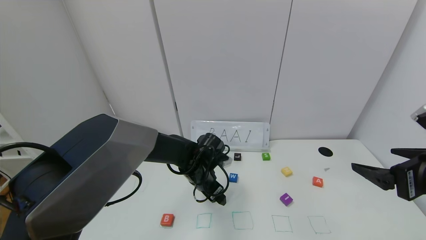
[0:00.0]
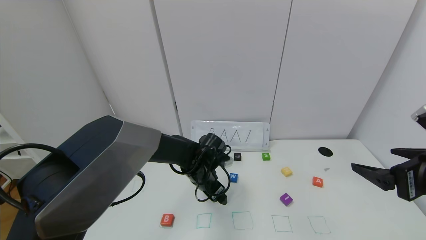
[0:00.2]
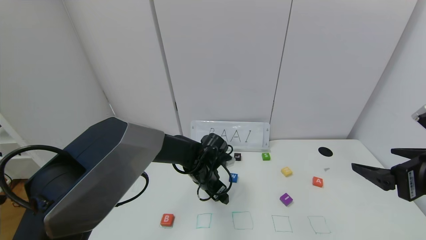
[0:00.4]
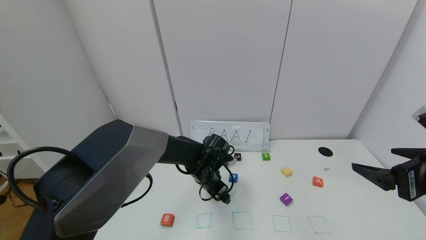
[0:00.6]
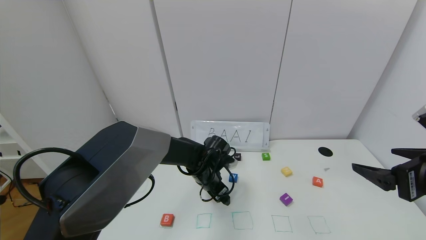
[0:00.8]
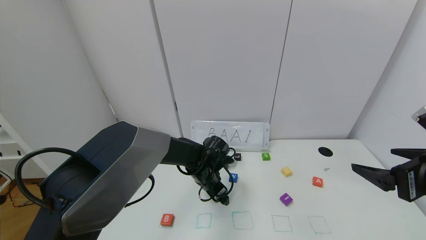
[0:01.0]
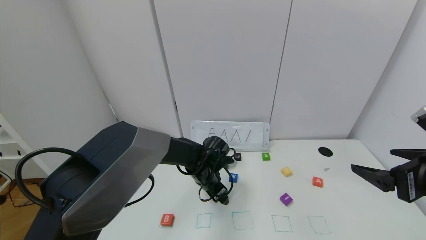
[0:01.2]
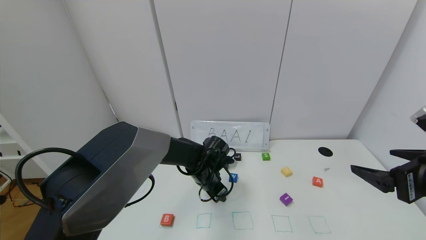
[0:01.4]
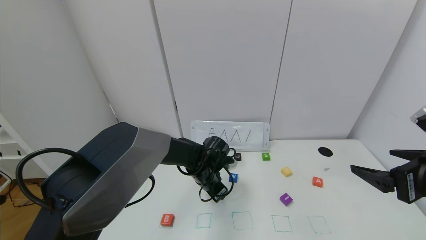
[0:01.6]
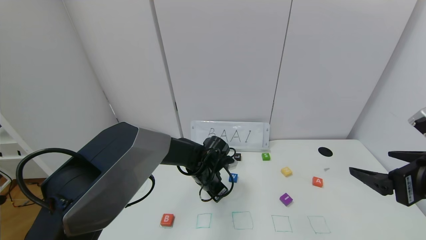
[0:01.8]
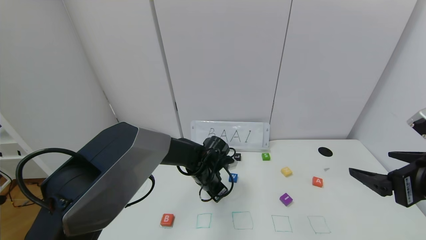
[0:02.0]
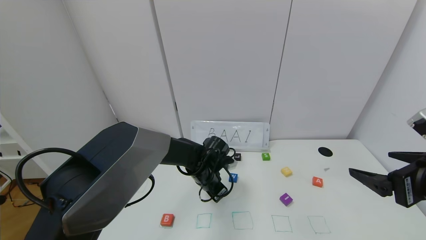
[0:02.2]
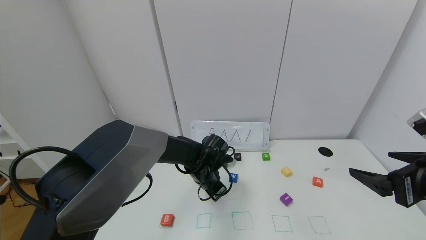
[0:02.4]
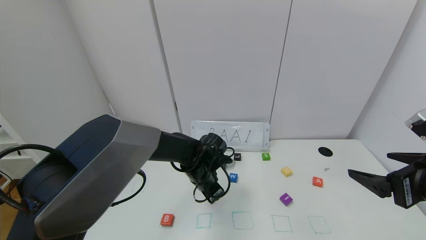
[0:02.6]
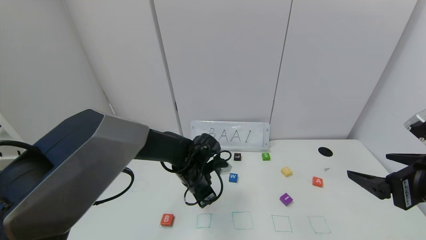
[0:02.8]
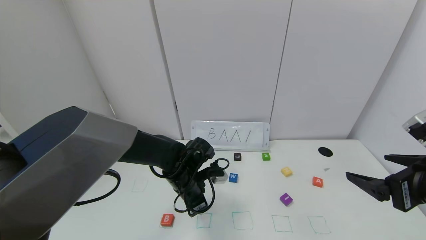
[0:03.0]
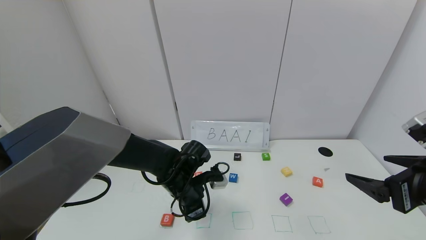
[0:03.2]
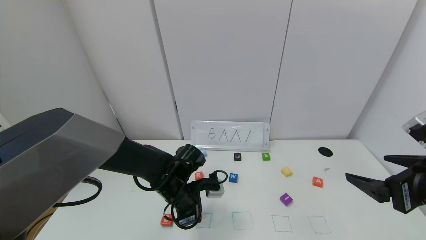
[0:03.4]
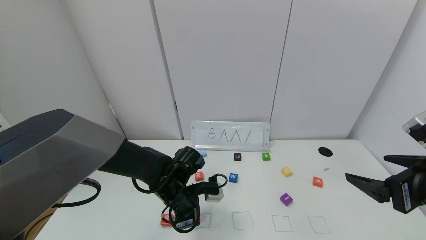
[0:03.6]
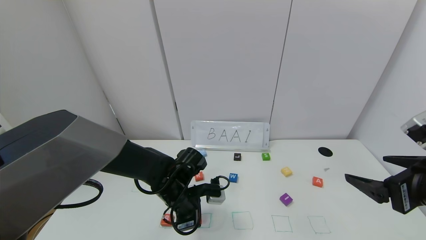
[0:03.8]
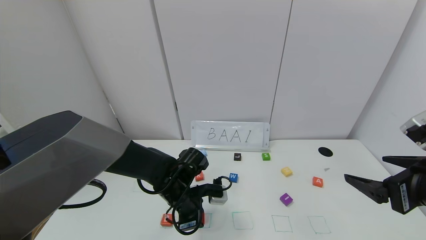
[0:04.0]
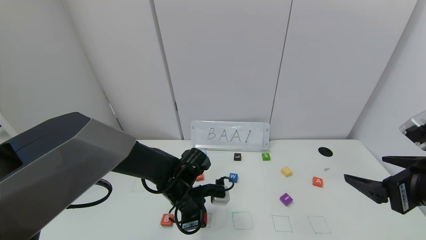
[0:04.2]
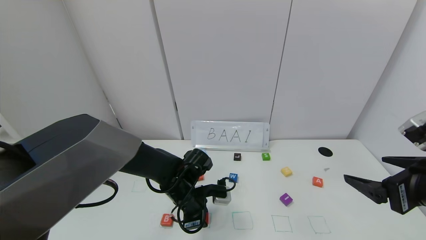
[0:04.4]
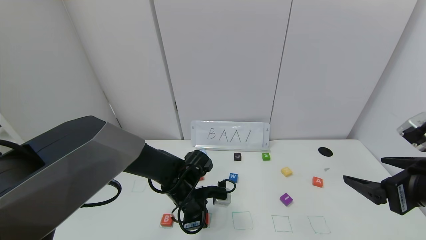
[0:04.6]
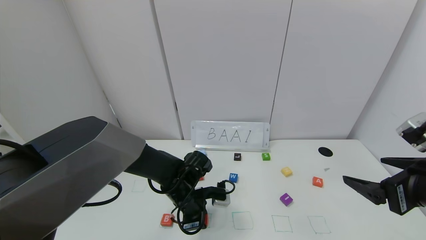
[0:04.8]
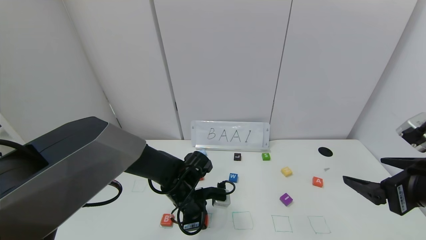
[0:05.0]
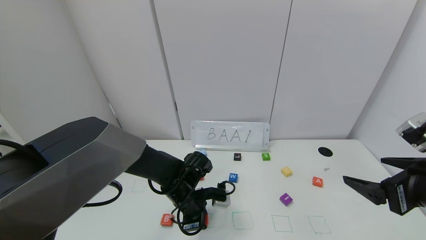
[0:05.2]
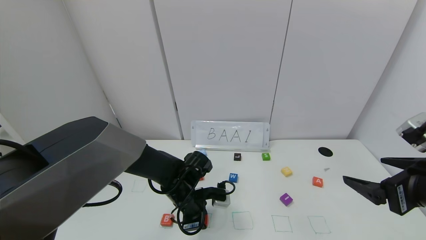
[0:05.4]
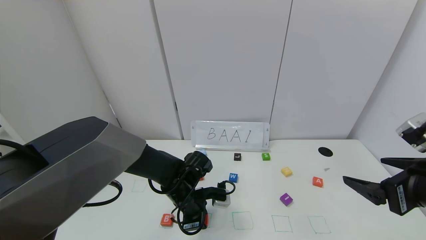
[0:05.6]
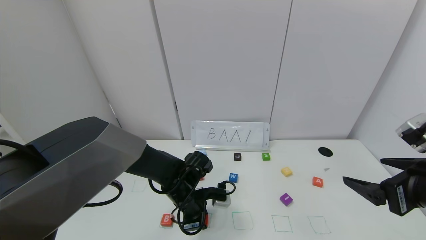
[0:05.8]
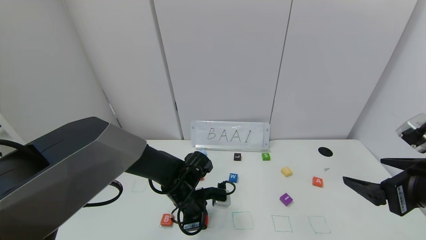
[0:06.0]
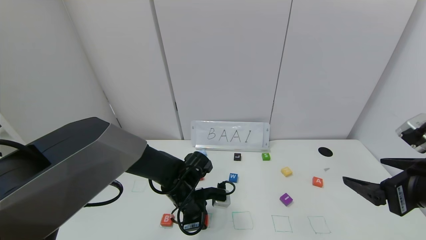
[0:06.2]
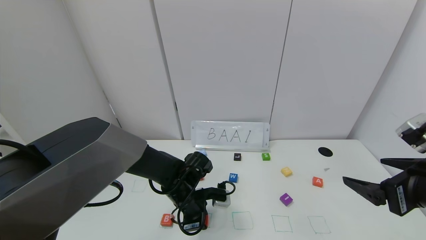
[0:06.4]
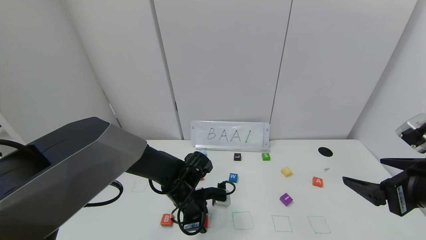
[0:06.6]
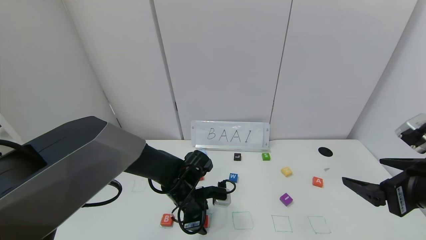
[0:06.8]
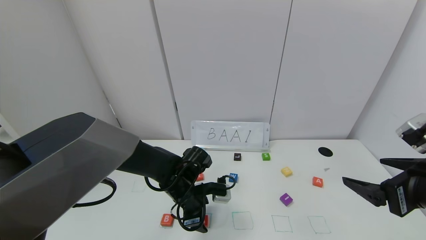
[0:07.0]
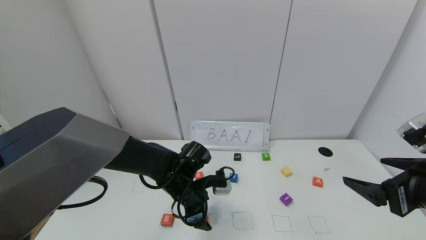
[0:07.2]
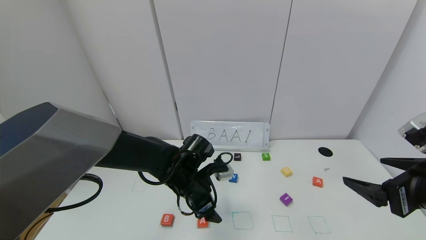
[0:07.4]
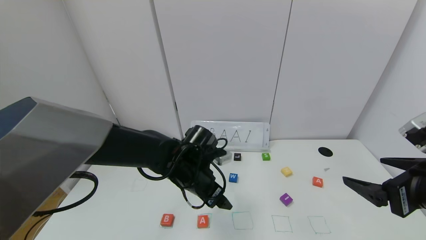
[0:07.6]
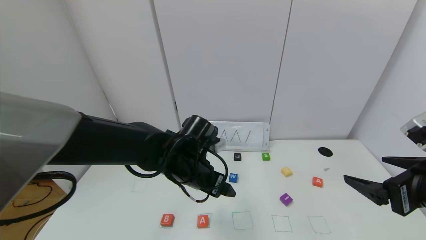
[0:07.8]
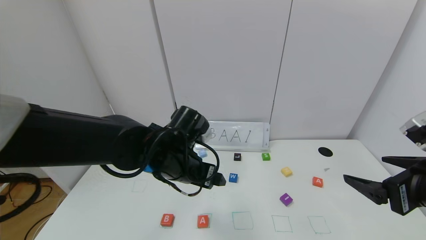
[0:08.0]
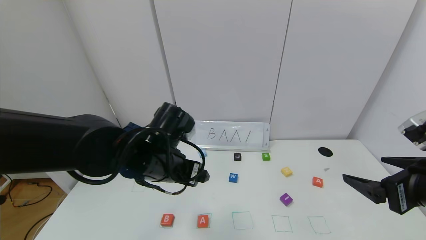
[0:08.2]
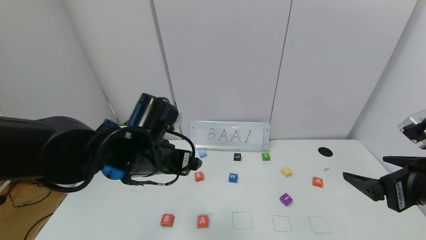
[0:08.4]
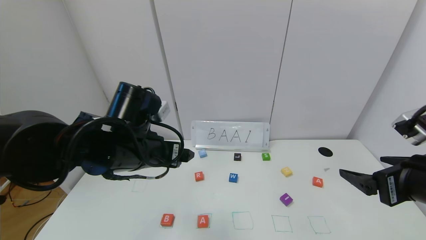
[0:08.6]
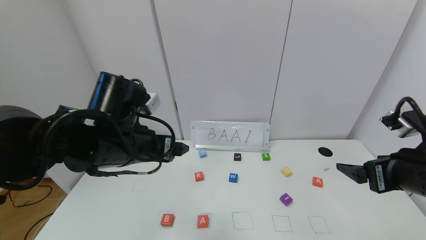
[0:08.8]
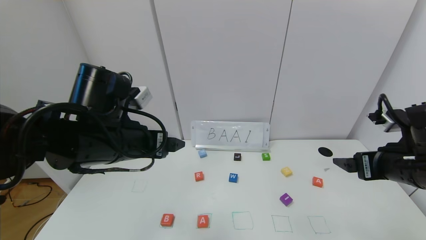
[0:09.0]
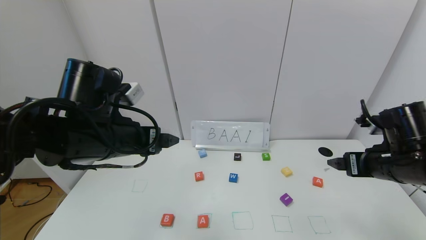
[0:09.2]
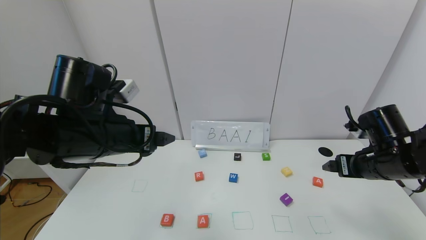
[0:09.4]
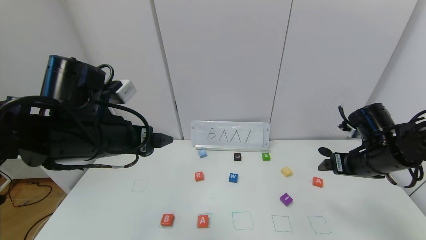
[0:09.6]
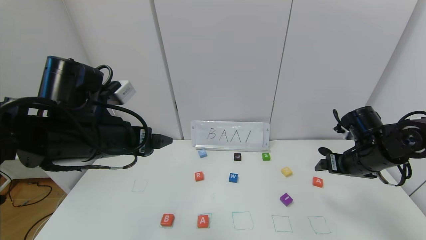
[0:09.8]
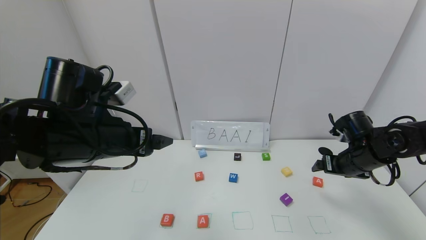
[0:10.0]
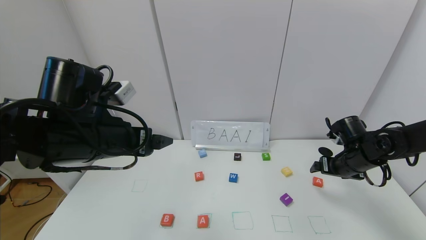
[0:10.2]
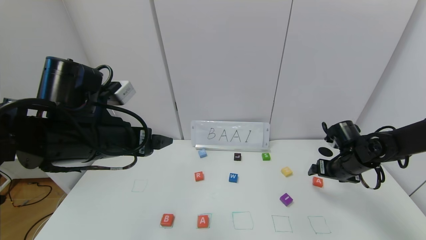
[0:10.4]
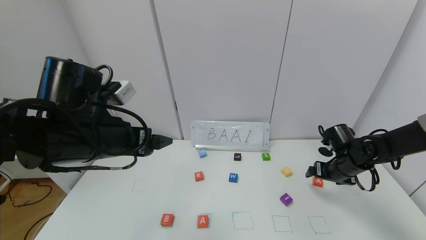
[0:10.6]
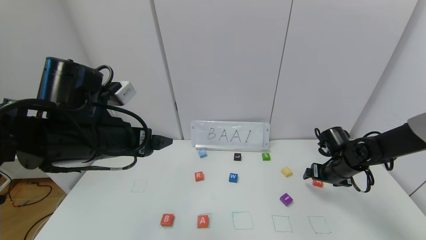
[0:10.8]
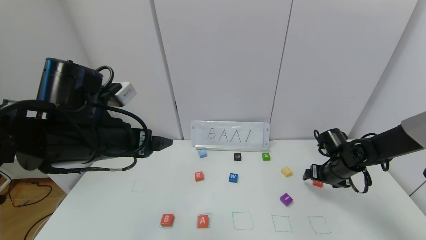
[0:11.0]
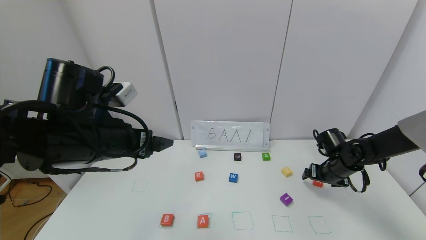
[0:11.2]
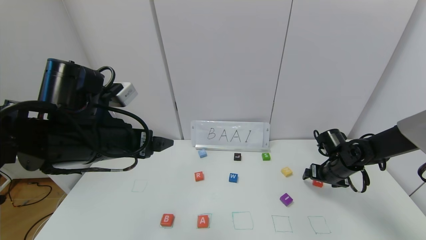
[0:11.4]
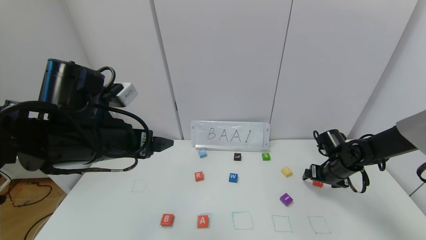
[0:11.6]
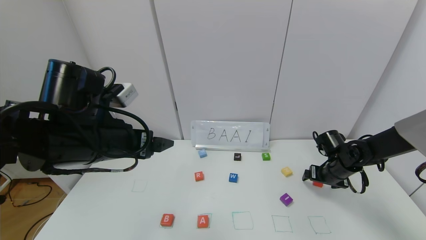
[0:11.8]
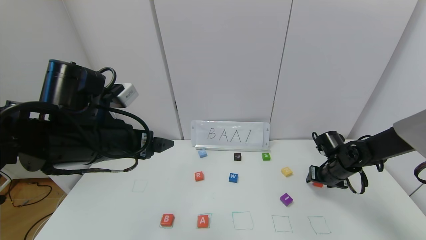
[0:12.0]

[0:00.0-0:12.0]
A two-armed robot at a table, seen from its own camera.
Task of the whole recording: use the gripper to find blocks with the letters b, a, a, and i on the table and arrange them into BAAI, then find r and N and turn the arranged baai into brian.
Step, 0:00.0 to 0:07.0: Place the first block A in the second location.
0:00.0 to 0:01.6: The left gripper closes its fingers.
0:01.6 to 0:03.0: The left gripper moves backward, approximately 5 cm.
0:04.4 to 0:06.0: Both grippers stay put.
0:06.0 to 0:07.6: The left gripper moves upward, some 10 cm, and opens its fingers.
0:07.6 to 0:09.0: The left gripper moves upward, to the left and backward, approximately 15 cm; the right gripper shifts roughly 10 cm forward.
0:09.0 to 0:10.4: The right gripper is displaced forward and downward by roughly 20 cm.
0:10.4 to 0:12.0: The right gripper changes place by some 5 cm, and closes its fingers.

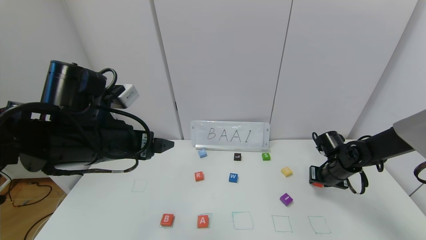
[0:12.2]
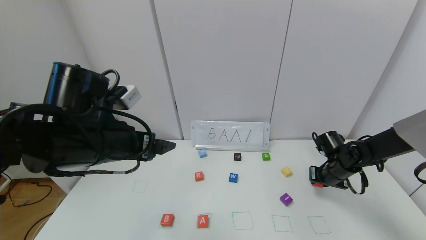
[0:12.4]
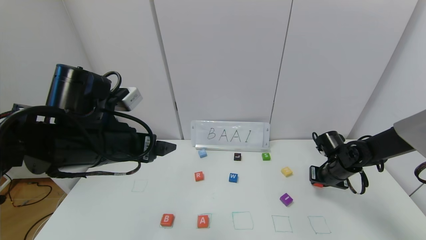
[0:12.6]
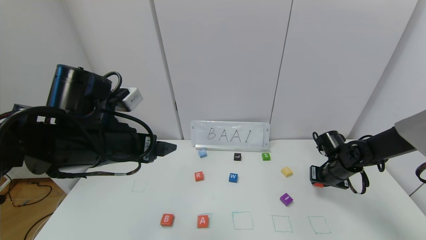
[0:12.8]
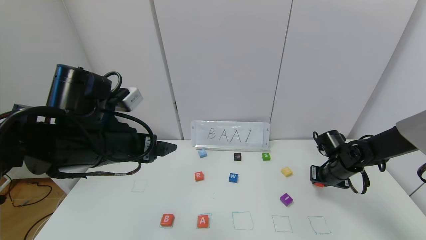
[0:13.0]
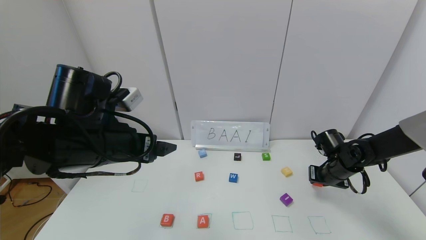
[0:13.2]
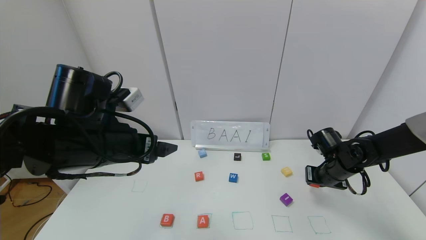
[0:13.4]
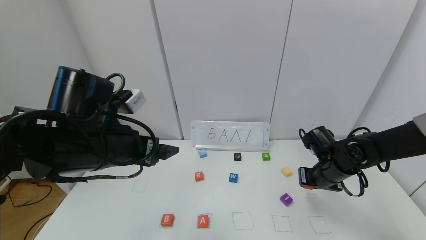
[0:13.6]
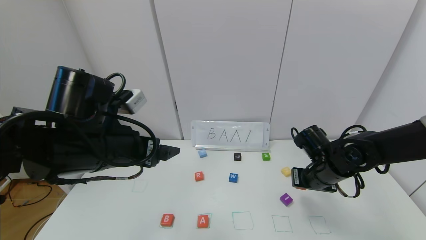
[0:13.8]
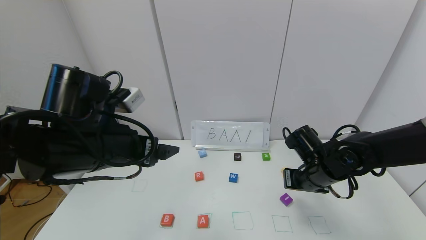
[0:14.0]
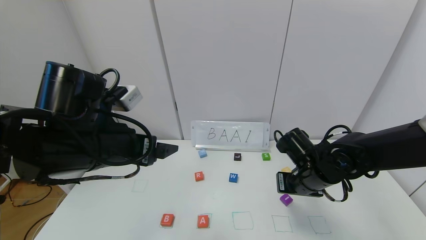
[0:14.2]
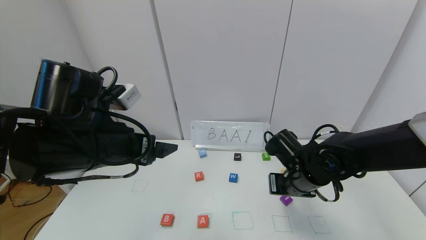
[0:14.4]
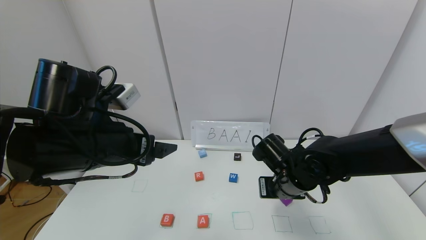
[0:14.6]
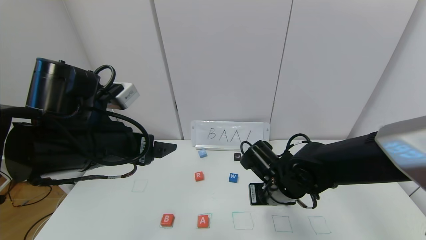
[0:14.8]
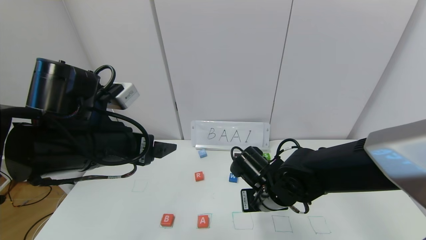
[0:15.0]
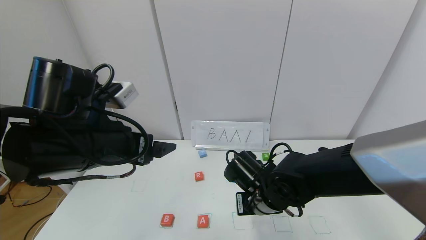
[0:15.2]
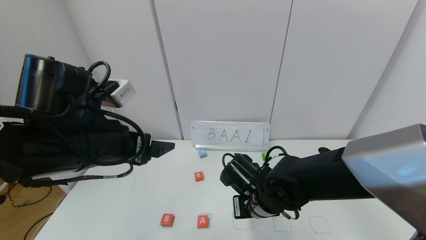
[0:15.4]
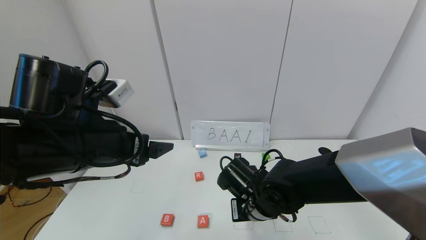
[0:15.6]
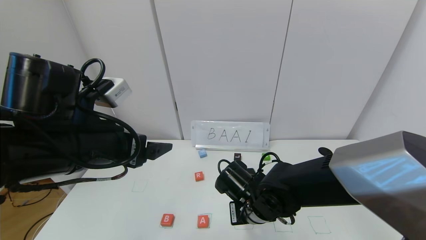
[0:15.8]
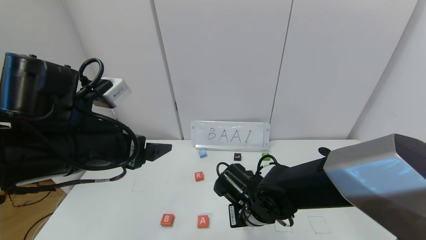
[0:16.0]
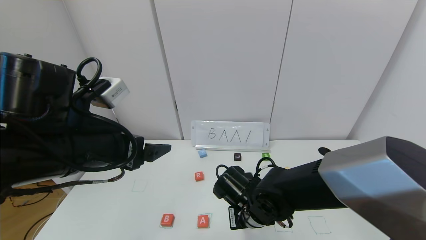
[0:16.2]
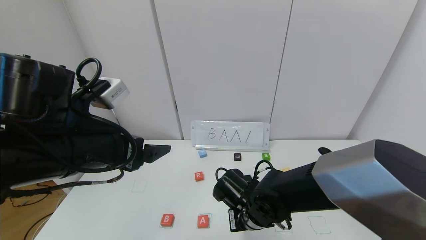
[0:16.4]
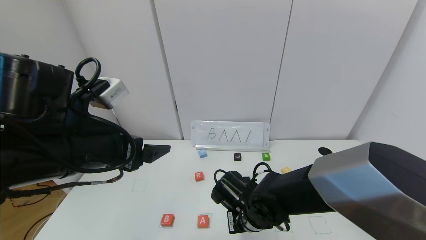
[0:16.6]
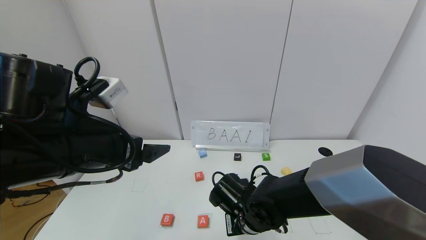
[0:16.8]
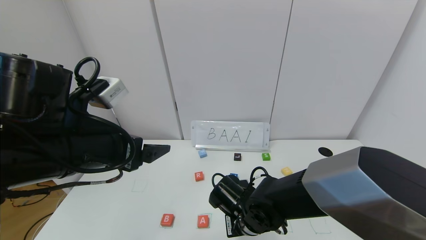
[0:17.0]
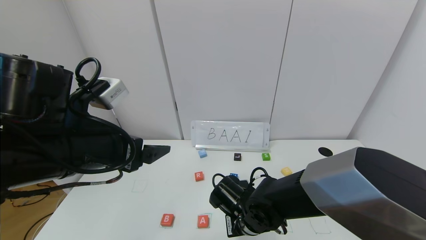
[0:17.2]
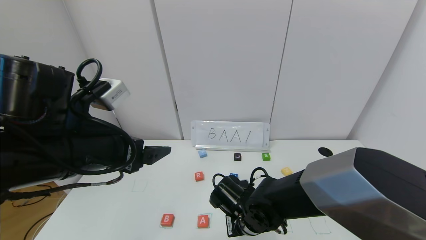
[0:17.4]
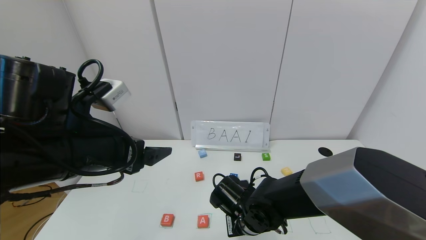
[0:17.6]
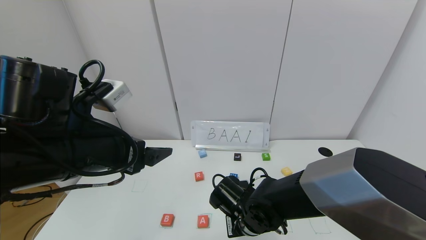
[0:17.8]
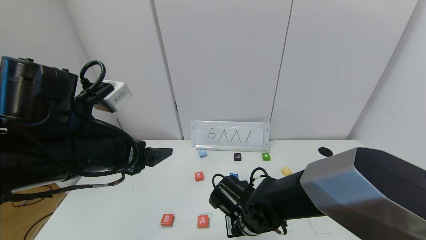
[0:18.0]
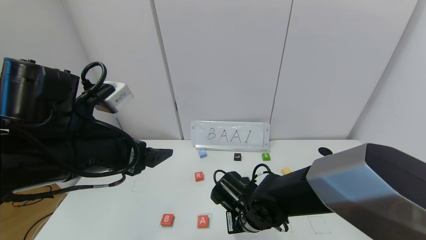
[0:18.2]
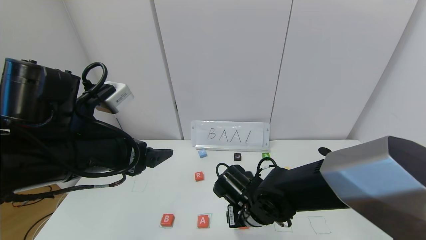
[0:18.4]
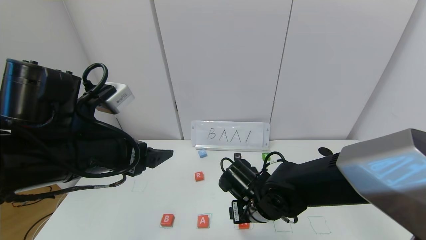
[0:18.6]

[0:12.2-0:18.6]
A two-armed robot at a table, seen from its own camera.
Task of the whole recording: use the gripper to find blocks with the letters b, a, a, and i on the table and arrange them into BAAI, then find r and N and turn the arranged baai into brian.
Step, 0:12.2 to 0:18.2: Place the second block A in the third location.
0:12.2 to 0:13.8: The right gripper travels to the left, backward and upward by approximately 15 cm.
0:13.8 to 0:15.4: The right gripper is displaced to the left by about 15 cm.
0:15.4 to 0:17.0: The right gripper ends up approximately 5 cm from where it was.
0:17.0 to 0:18.6: The right gripper opens up.
